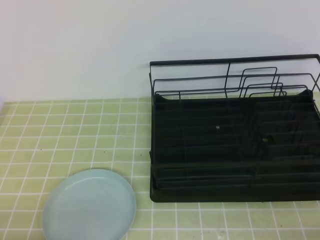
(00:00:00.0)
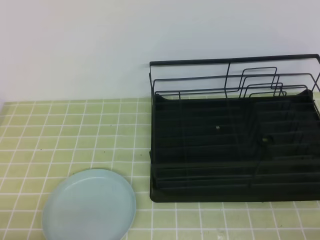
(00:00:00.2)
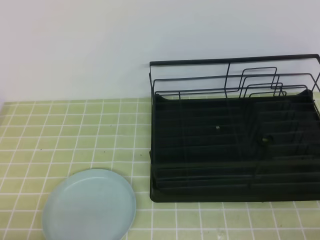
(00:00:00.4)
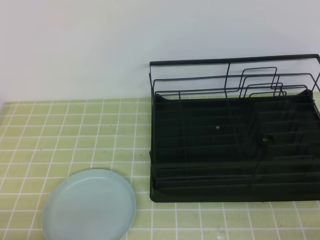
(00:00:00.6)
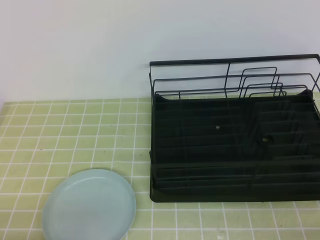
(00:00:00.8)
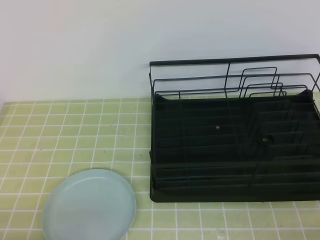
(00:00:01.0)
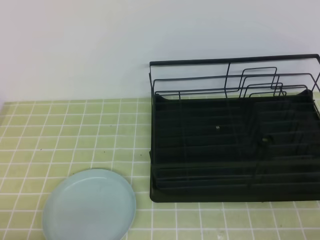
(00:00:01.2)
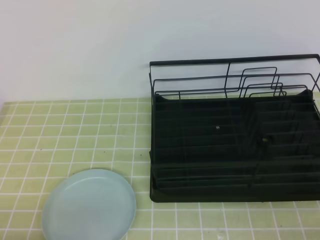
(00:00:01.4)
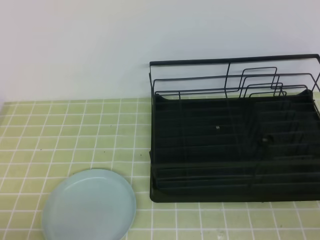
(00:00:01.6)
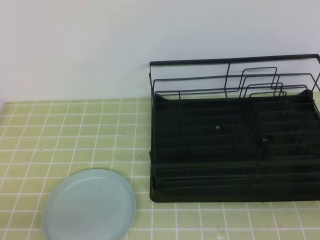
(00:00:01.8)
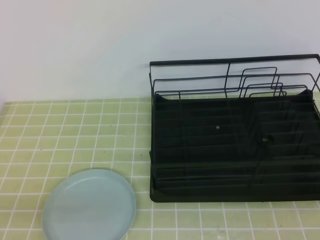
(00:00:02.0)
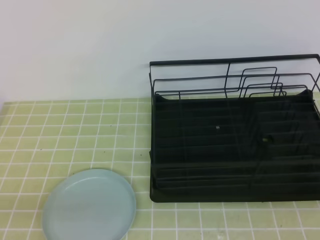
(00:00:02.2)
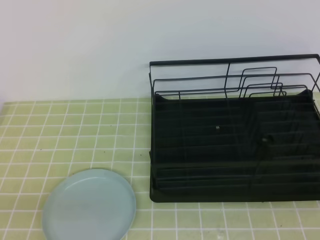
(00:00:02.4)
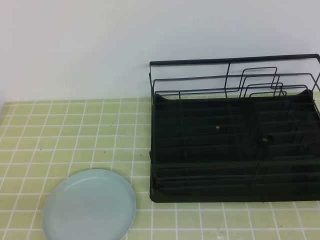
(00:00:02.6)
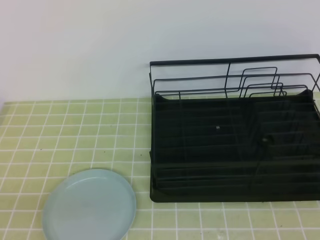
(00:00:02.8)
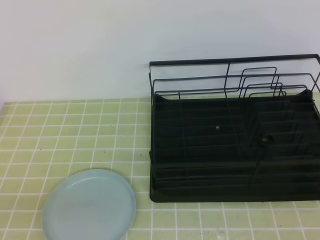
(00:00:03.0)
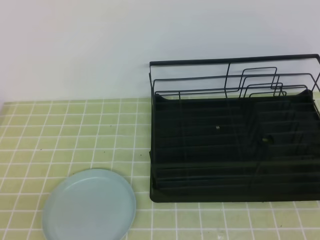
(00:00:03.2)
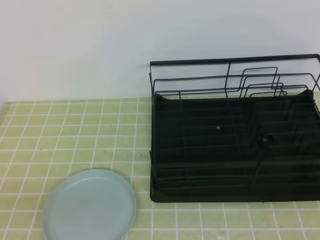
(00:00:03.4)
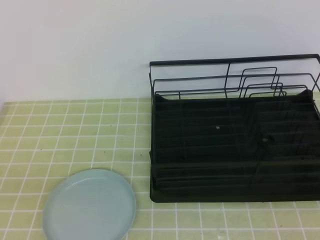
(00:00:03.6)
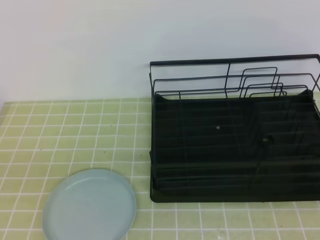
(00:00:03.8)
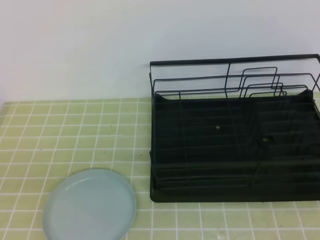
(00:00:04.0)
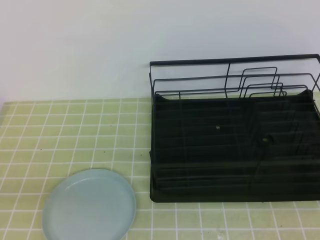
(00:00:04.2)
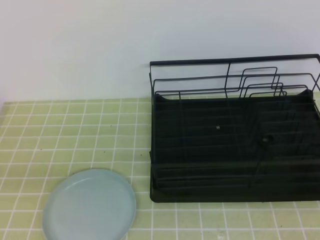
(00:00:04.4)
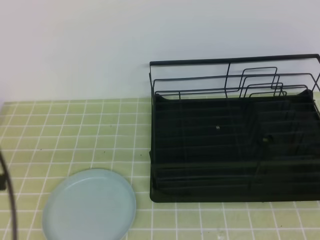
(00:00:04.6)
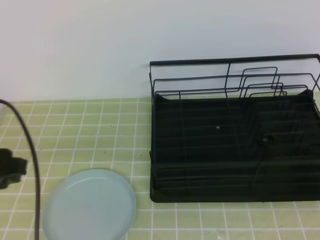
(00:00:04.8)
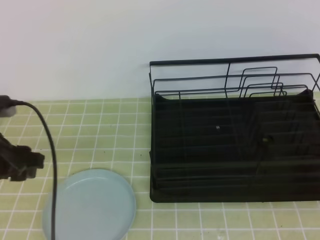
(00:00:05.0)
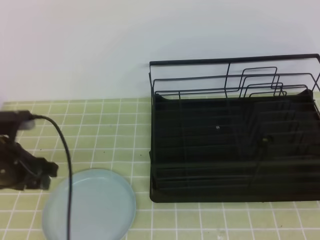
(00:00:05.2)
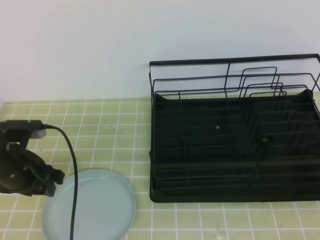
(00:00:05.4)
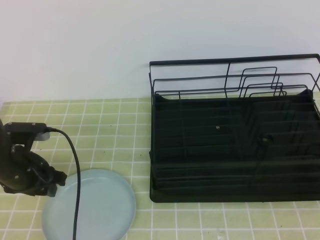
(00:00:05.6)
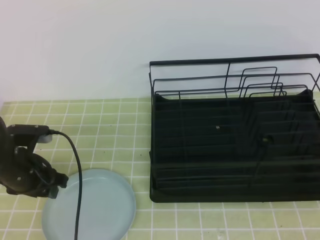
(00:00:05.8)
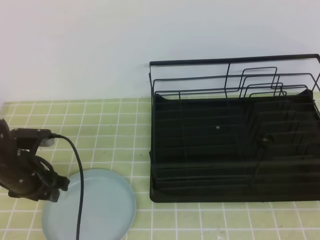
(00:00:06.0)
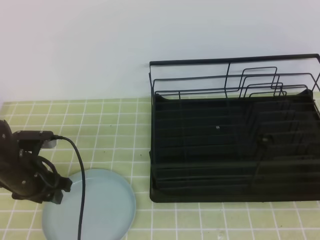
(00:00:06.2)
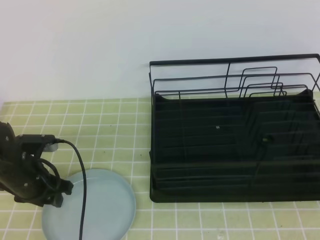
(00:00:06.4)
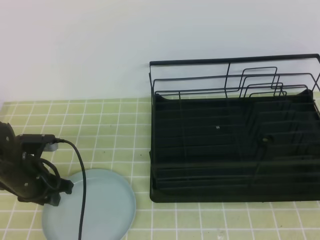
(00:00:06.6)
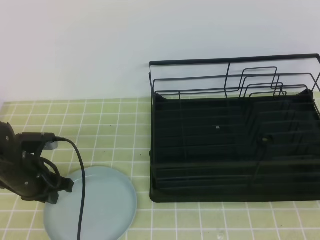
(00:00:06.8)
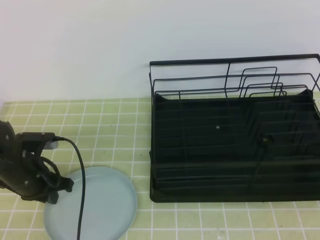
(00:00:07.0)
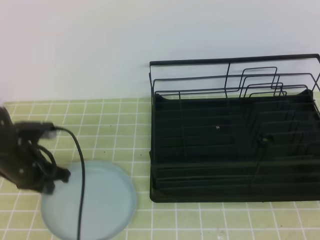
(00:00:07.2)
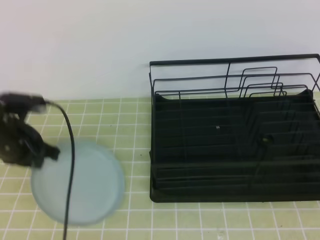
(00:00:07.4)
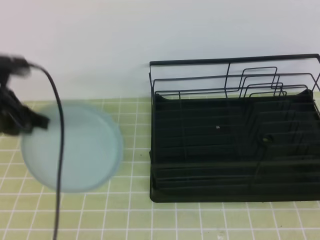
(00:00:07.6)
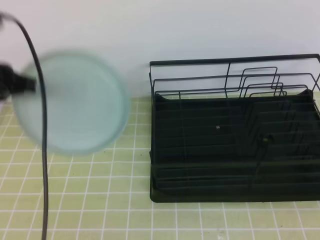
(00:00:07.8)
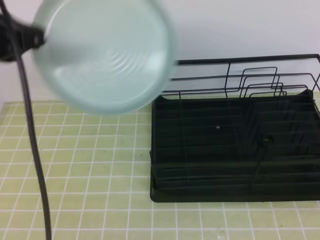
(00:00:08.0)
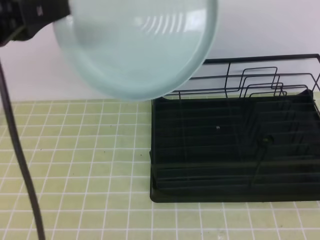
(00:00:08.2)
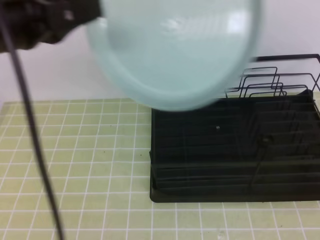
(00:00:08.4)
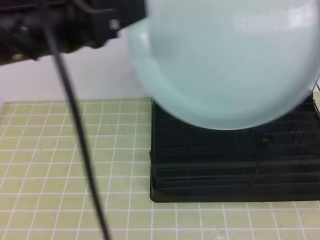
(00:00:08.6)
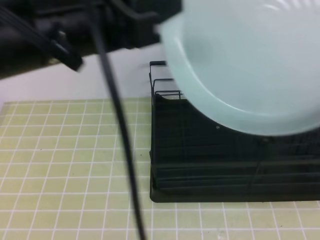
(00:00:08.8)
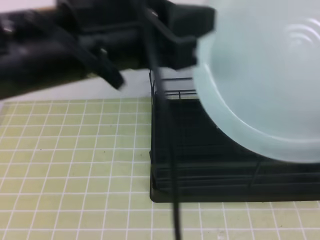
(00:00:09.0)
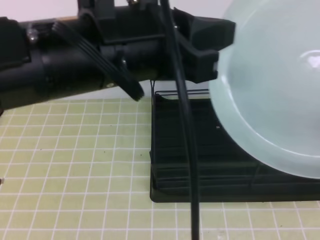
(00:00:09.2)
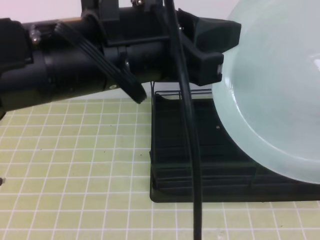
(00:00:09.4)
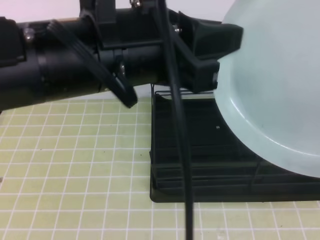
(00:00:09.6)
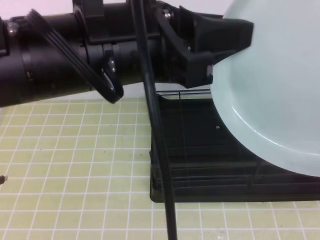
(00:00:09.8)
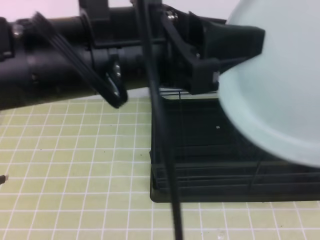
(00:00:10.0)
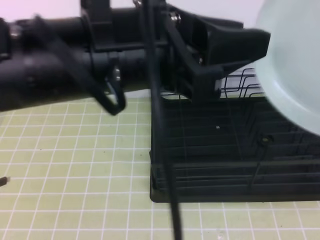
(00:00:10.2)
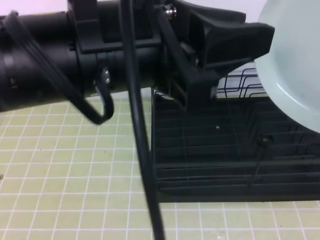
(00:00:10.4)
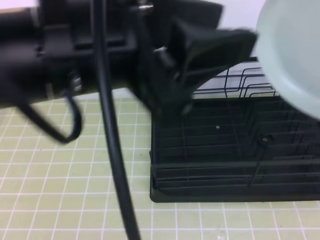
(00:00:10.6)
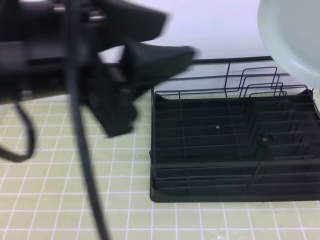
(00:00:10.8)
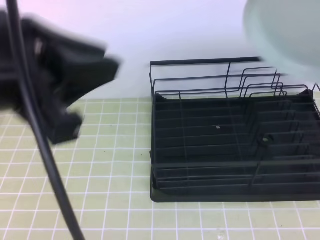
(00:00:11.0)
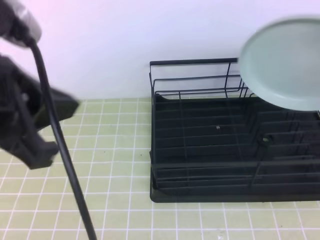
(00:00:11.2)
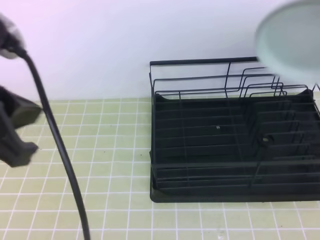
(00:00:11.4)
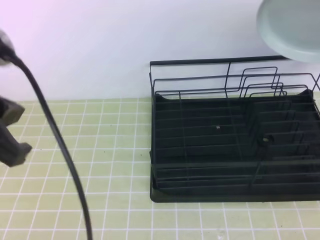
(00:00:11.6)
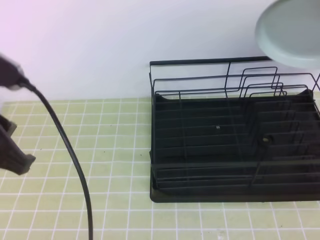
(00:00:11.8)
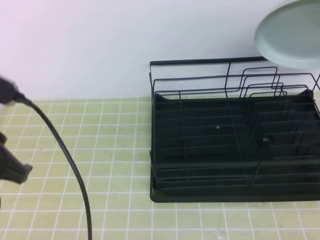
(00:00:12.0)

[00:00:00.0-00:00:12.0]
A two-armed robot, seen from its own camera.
00:00:04.4 to 00:00:06.0: The left gripper heads forward and downward, covering roughly 25 cm, and opens.
00:00:06.0 to 00:00:07.6: The left gripper is displaced upward by some 15 cm, and closes up.
00:00:07.6 to 00:00:09.0: The right gripper goes approximately 5 cm upward, and opens its fingers; the left gripper moves to the right, upward and backward, about 25 cm.
00:00:09.0 to 00:00:10.4: The right gripper closes, while the left gripper opens.
00:00:10.4 to 00:00:12.0: The right gripper goes about 25 cm forward; the left gripper travels to the left and downward by approximately 15 cm, and closes.

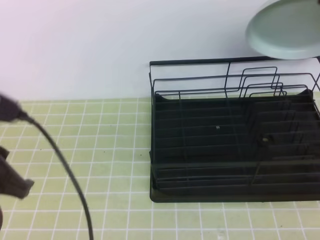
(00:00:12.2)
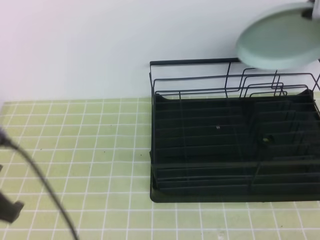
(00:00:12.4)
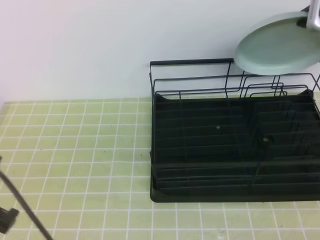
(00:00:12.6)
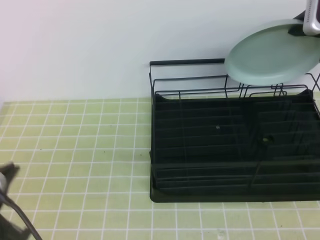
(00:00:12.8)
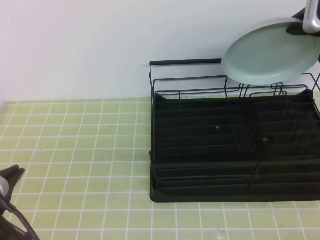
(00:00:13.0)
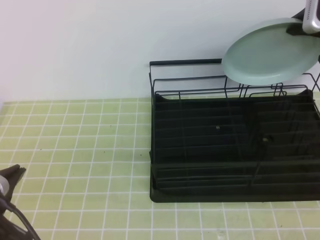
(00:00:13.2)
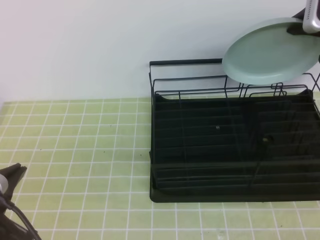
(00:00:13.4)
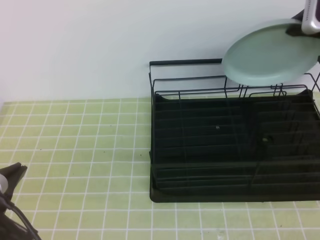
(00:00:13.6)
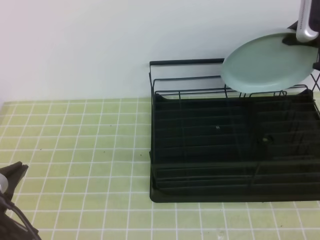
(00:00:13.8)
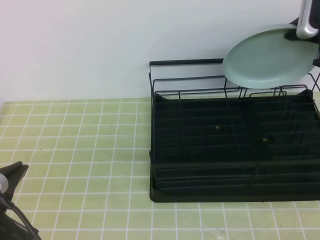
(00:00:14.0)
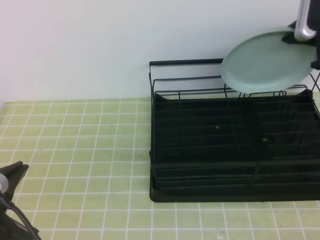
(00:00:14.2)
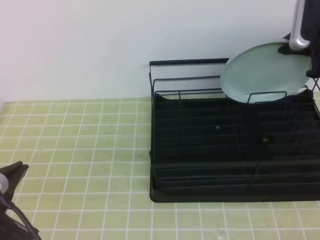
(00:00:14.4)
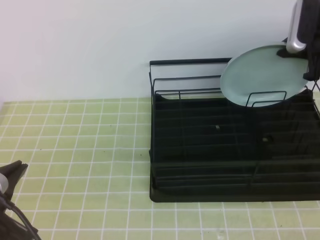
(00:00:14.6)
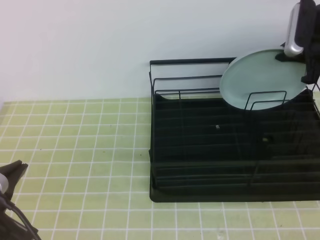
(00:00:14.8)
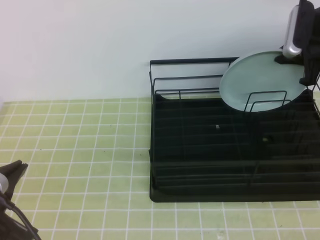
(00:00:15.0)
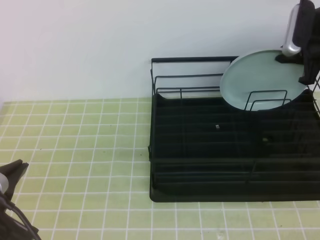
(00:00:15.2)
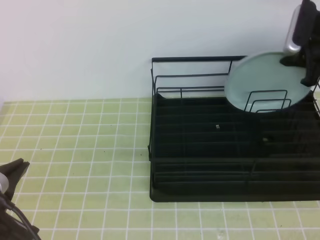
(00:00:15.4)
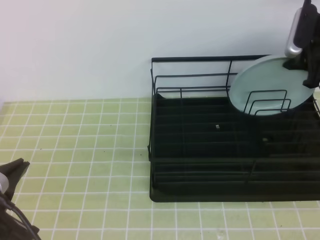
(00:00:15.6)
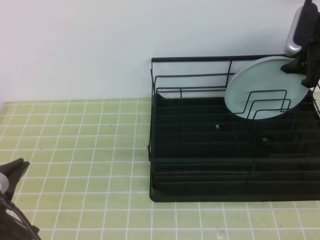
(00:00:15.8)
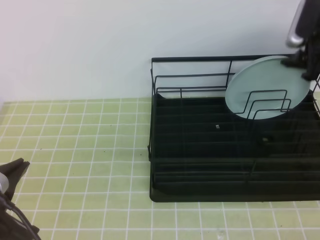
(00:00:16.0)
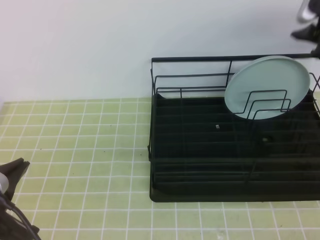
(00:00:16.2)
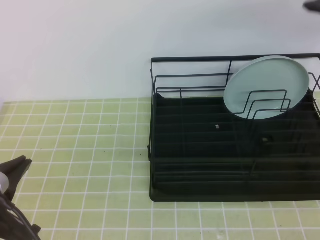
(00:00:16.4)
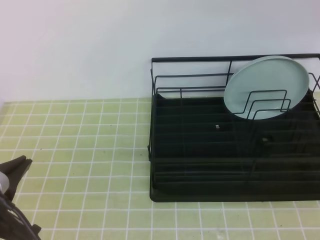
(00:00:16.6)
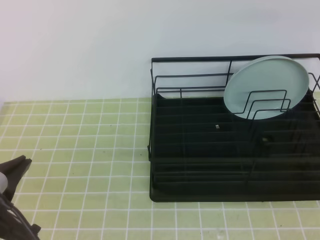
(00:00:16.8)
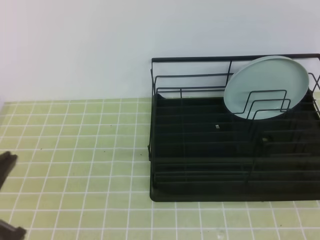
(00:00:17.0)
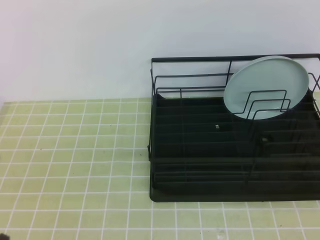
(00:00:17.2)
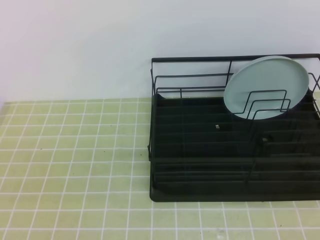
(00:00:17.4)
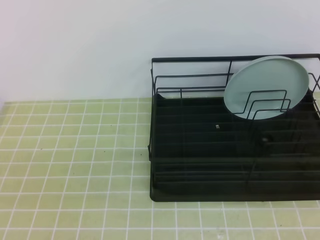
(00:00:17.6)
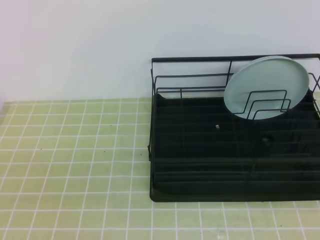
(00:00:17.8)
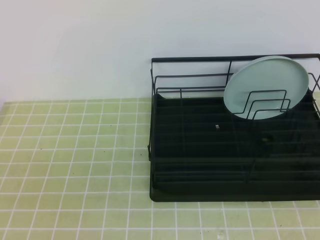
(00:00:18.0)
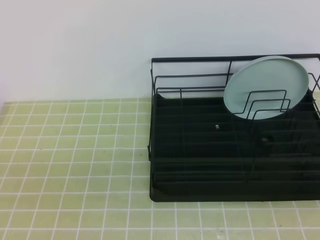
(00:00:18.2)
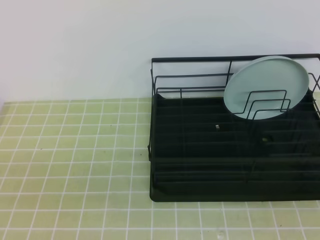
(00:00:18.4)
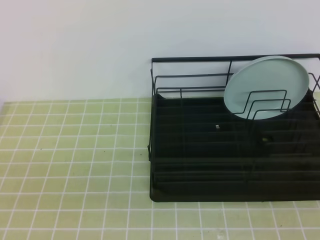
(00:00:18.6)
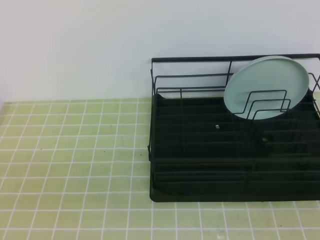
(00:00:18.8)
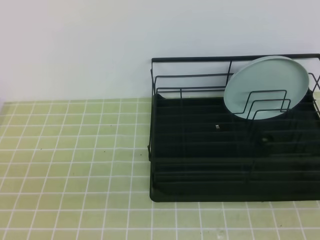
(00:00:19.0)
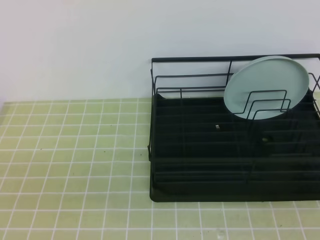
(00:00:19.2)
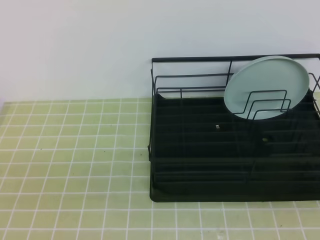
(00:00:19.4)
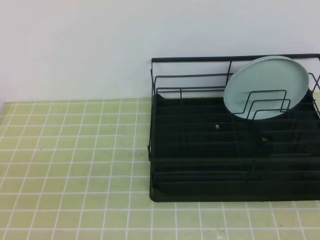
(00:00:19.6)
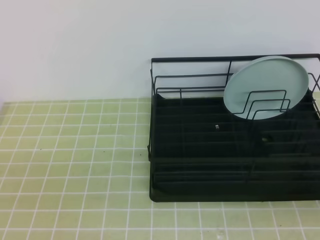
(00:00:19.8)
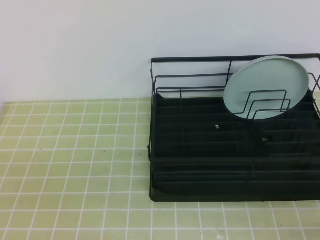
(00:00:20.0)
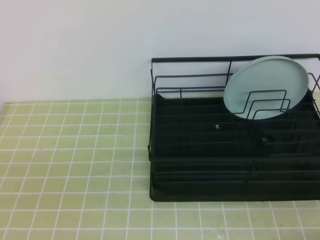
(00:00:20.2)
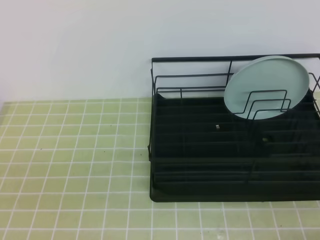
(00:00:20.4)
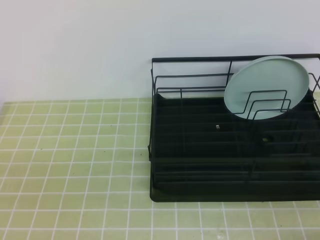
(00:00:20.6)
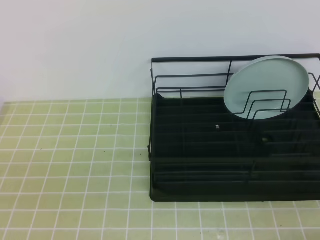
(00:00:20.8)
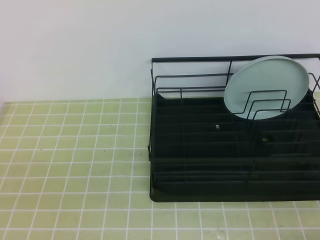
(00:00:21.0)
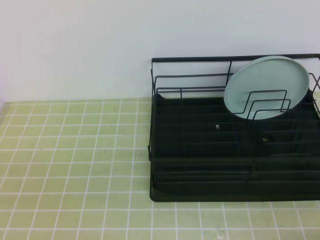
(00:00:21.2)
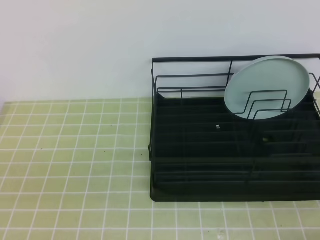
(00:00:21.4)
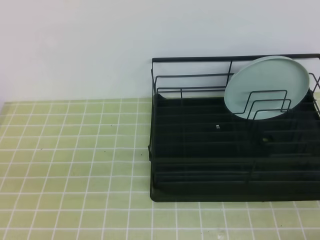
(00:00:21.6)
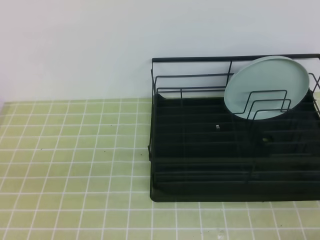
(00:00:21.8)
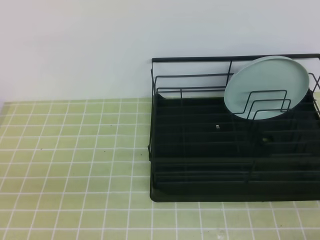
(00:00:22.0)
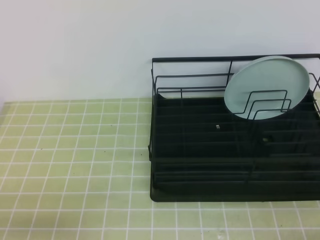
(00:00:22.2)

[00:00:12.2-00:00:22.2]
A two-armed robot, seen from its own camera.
00:00:12.2 to 00:00:13.6: The right gripper ends up some 5 cm from where it was. The left gripper goes approximately 5 cm backward.
00:00:13.6 to 00:00:15.0: The right gripper is displaced downward by roughly 5 cm.
00:00:15.0 to 00:00:16.4: The right gripper is displaced upward by approximately 10 cm, and opens up.
00:00:16.4 to 00:00:18.0: The left gripper shifts approximately 5 cm backward; the right gripper is displaced backward by some 35 cm, and closes up.
